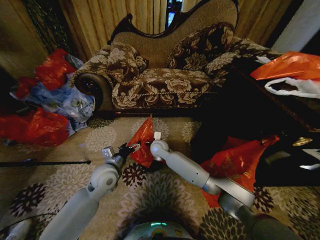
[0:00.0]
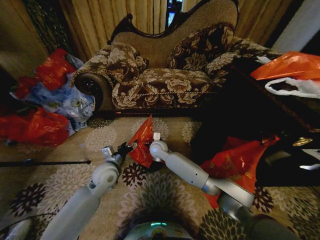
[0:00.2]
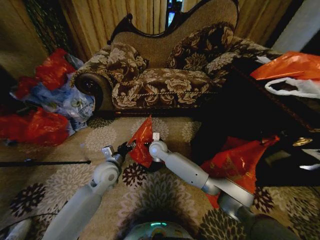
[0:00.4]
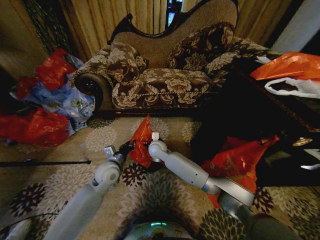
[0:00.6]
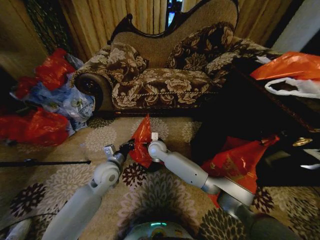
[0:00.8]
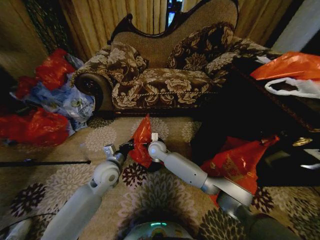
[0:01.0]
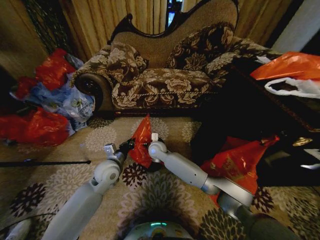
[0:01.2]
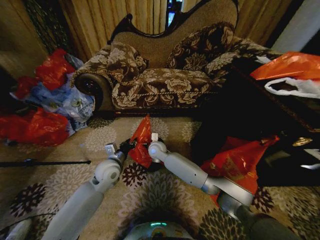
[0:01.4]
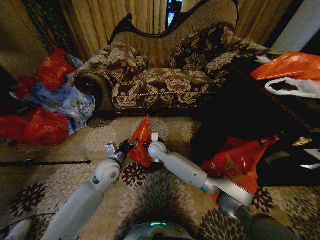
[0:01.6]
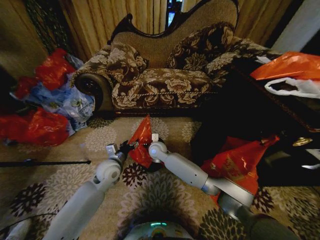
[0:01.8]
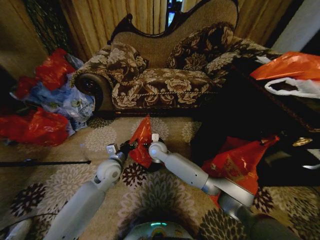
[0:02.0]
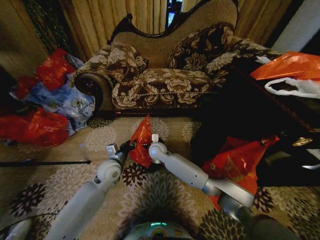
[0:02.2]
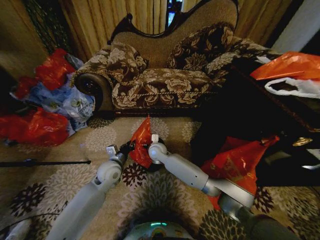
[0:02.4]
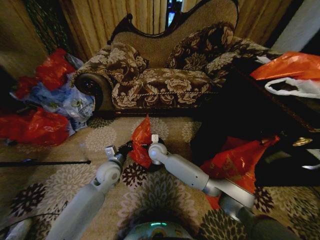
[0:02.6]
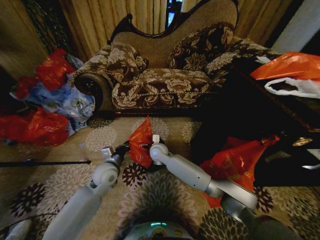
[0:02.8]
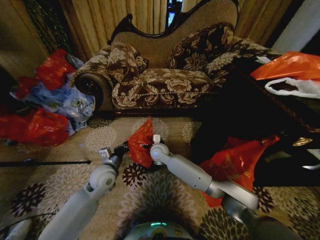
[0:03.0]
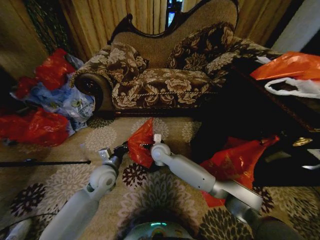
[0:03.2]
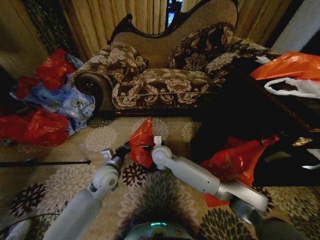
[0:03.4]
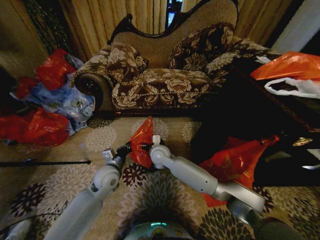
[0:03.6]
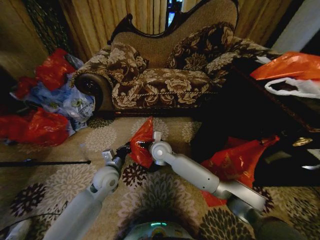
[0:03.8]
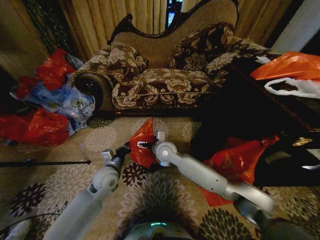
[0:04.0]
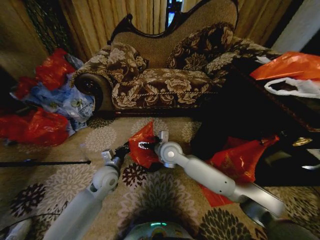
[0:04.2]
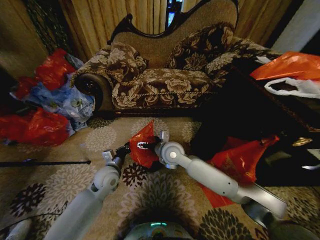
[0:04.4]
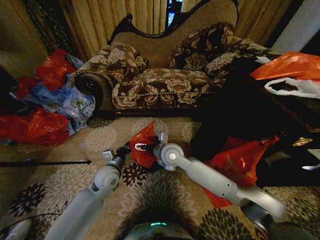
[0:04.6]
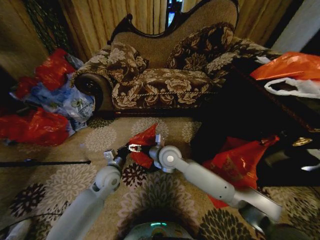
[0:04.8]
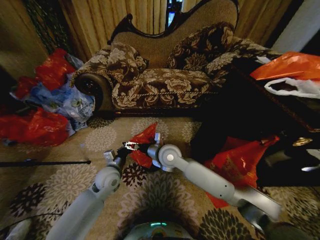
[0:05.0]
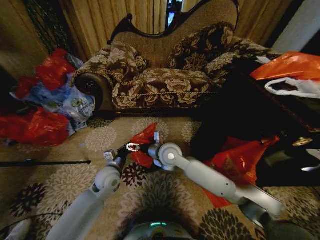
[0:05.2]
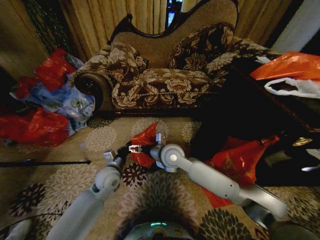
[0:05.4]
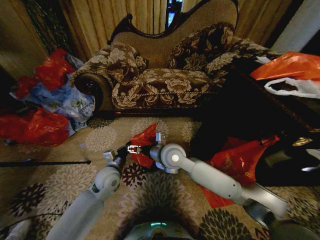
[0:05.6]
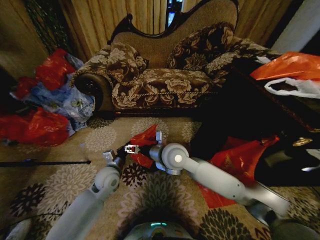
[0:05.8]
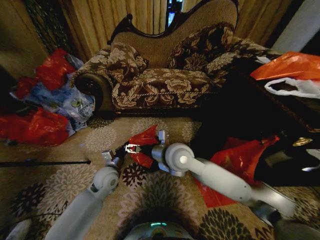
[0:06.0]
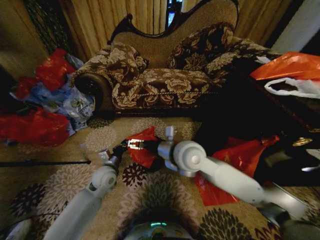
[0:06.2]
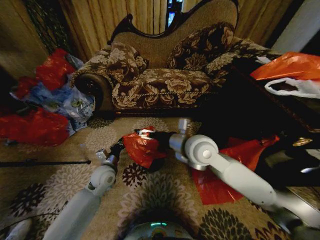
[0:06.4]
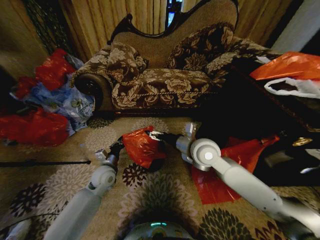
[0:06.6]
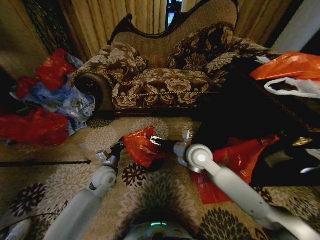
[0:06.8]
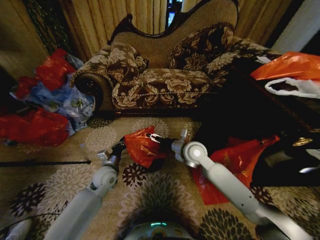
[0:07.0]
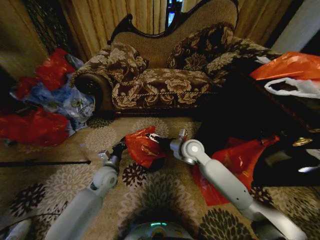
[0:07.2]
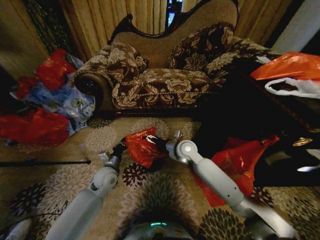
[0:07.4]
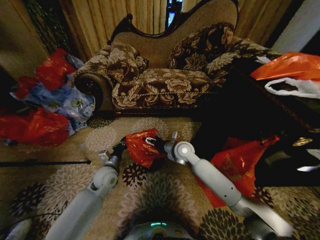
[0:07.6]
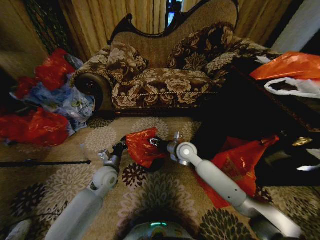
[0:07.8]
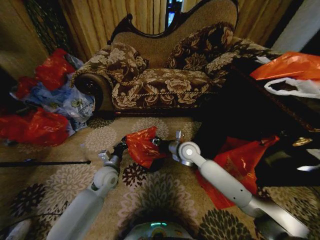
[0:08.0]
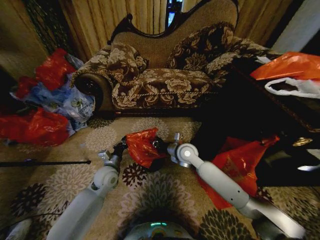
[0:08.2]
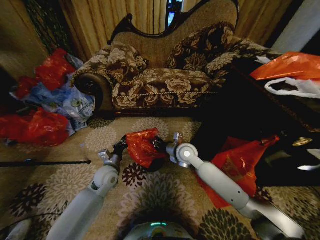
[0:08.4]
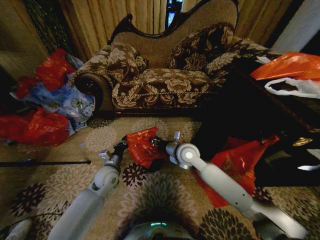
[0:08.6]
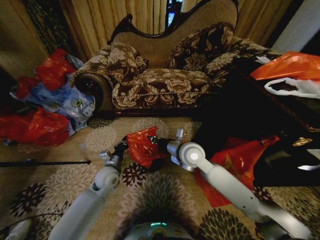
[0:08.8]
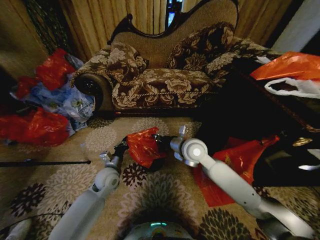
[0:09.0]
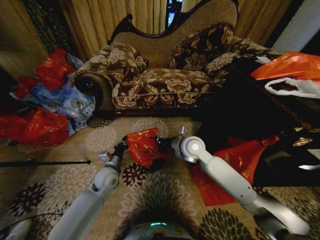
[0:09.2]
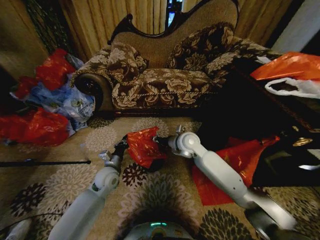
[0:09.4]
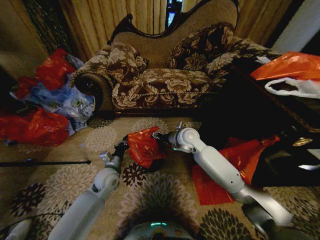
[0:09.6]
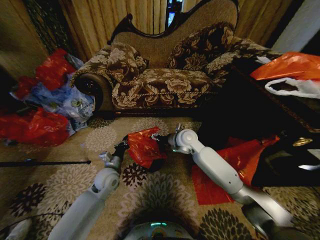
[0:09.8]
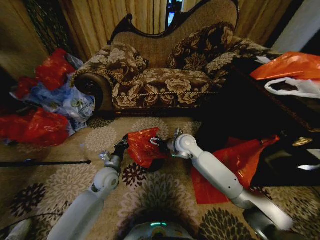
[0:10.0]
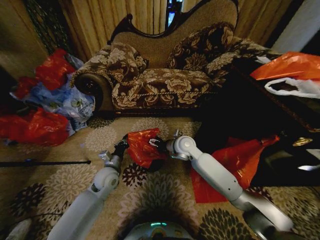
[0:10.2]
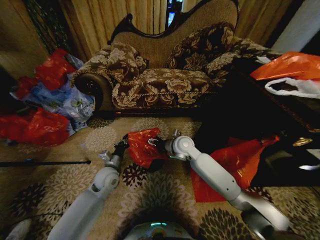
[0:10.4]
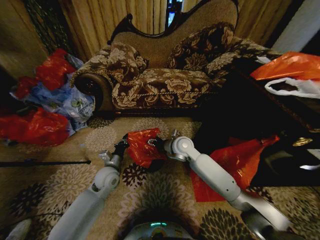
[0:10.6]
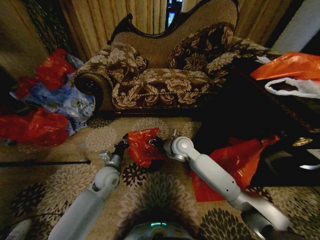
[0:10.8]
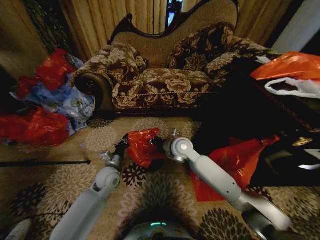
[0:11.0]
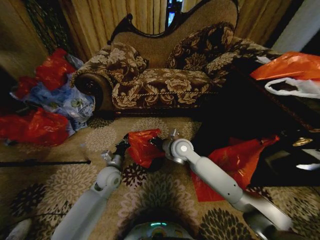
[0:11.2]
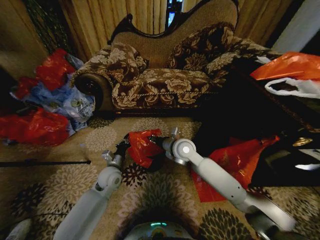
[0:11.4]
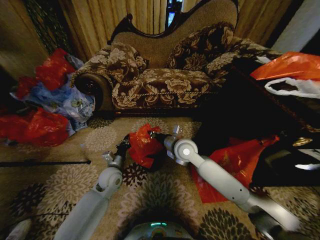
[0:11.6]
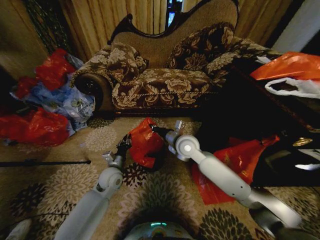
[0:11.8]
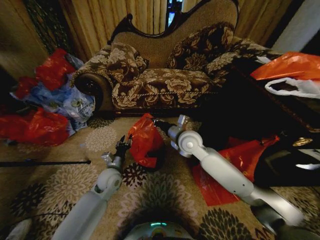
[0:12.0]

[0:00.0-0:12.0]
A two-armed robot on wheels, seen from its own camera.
Task of the whole recording: Place a garbage bag over the trash bin.
0:00.0 to 0:01.6: The left gripper closes.
0:01.6 to 0:03.0: The left gripper closes its fingers.
0:03.0 to 0:04.4: The right gripper moves upward, backward and to the right, approximately 10 cm.
0:04.4 to 0:06.0: The right gripper travels backward and upward by about 5 cm.
0:06.0 to 0:07.6: The right gripper shifts some 15 cm forward, downward and to the right.
0:07.6 to 0:09.0: The right gripper shifts about 5 cm upward, and closes its fingers.
0:09.0 to 0:10.4: The right gripper moves approximately 5 cm, and opens up.
0:10.4 to 0:12.0: The right gripper moves upward, roughly 5 cm, and closes its fingers. The left gripper opens.

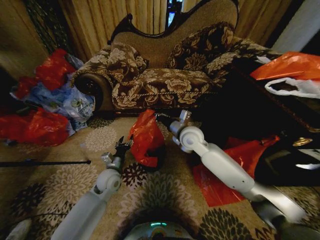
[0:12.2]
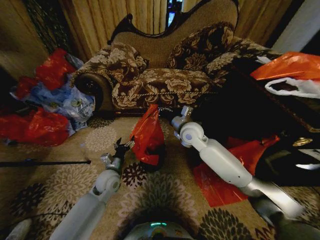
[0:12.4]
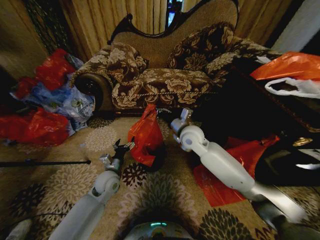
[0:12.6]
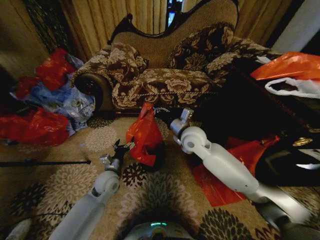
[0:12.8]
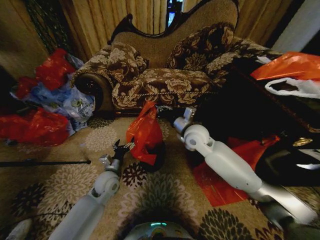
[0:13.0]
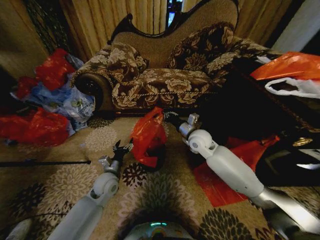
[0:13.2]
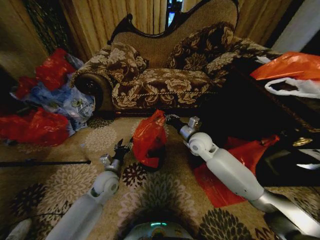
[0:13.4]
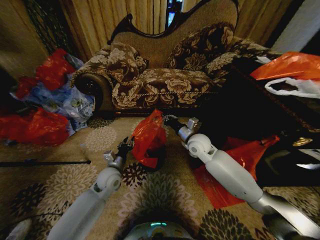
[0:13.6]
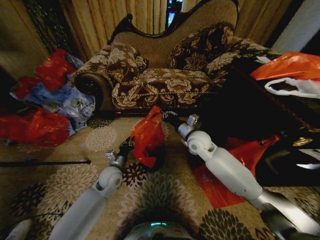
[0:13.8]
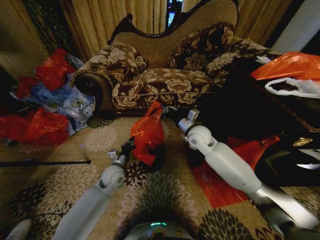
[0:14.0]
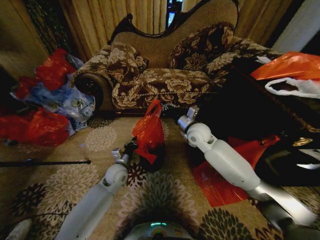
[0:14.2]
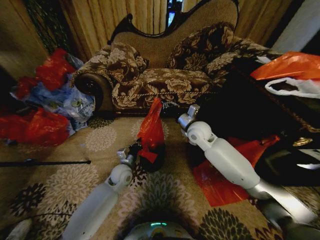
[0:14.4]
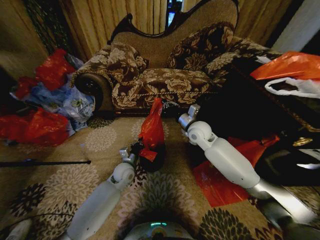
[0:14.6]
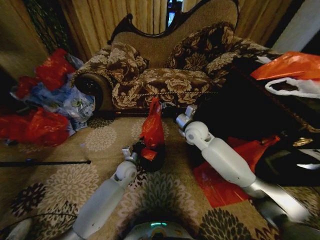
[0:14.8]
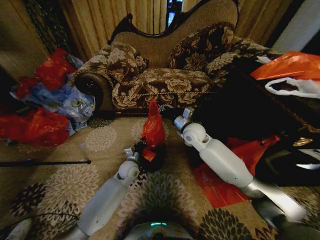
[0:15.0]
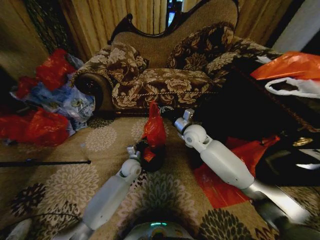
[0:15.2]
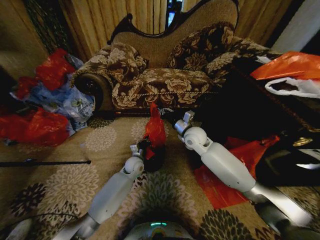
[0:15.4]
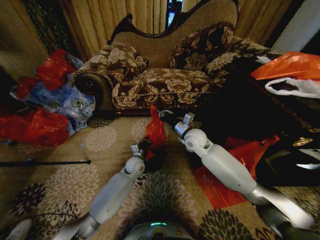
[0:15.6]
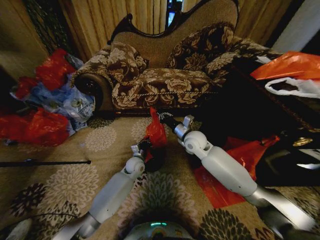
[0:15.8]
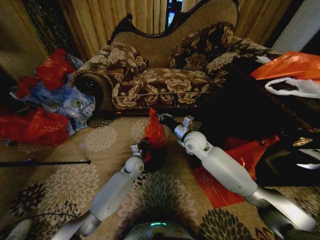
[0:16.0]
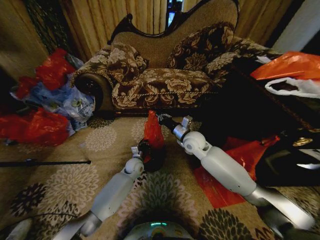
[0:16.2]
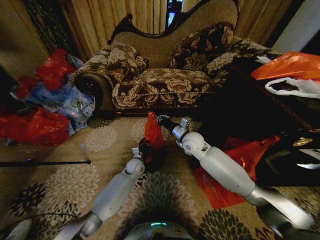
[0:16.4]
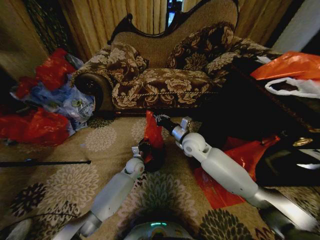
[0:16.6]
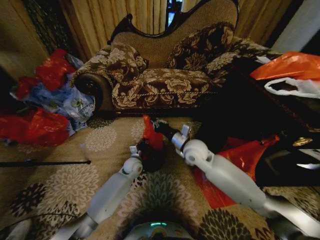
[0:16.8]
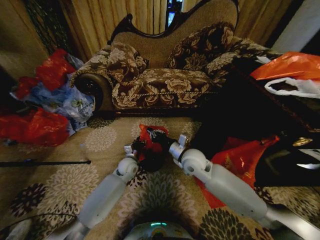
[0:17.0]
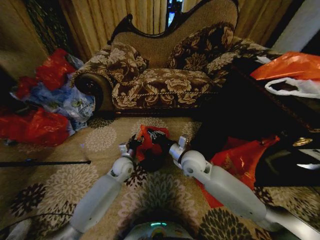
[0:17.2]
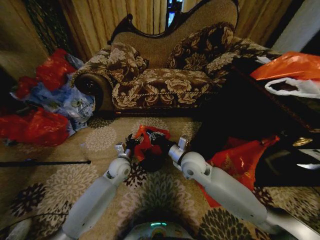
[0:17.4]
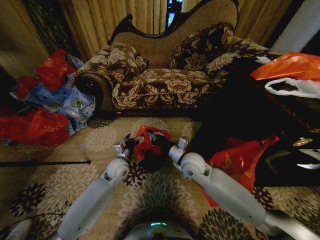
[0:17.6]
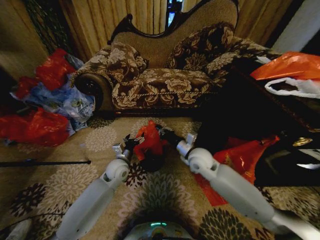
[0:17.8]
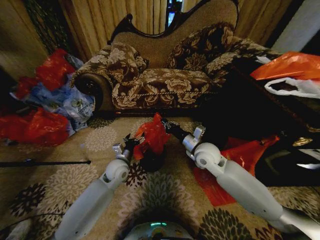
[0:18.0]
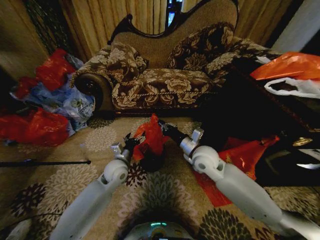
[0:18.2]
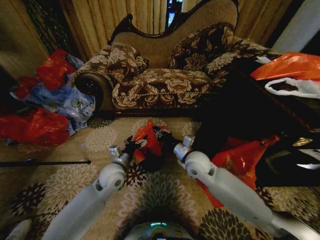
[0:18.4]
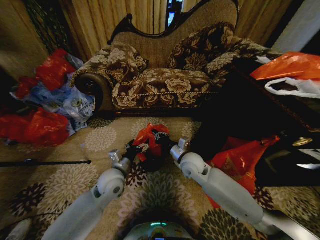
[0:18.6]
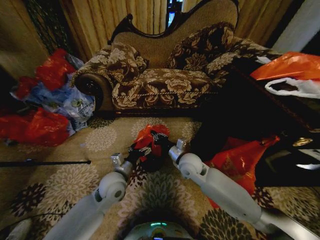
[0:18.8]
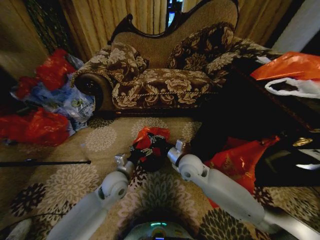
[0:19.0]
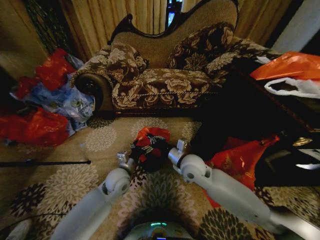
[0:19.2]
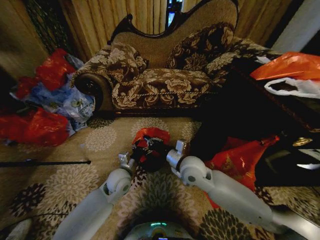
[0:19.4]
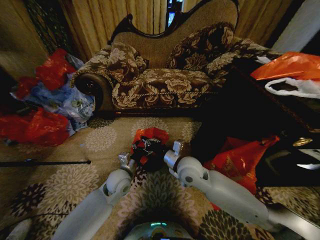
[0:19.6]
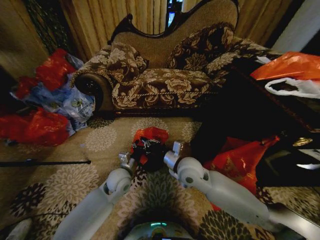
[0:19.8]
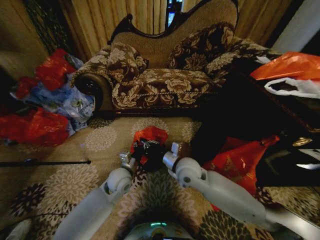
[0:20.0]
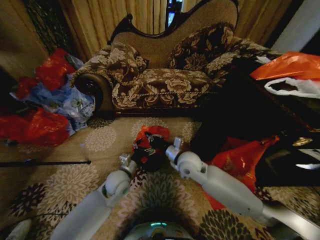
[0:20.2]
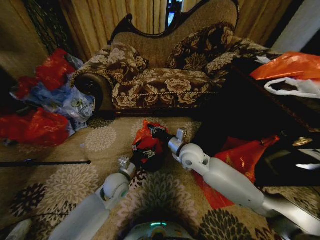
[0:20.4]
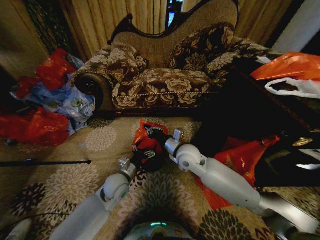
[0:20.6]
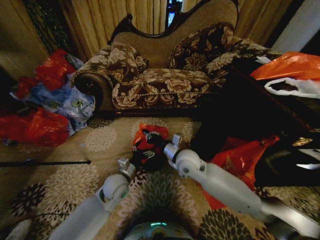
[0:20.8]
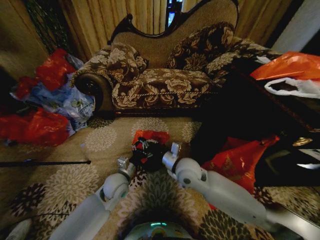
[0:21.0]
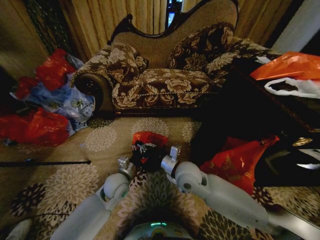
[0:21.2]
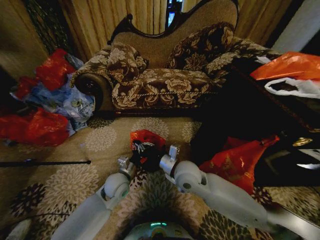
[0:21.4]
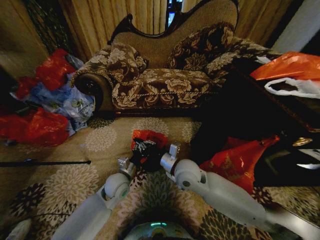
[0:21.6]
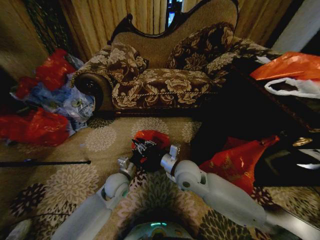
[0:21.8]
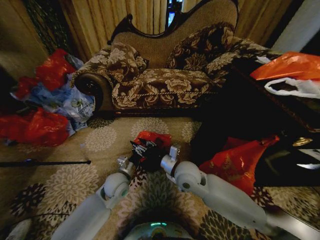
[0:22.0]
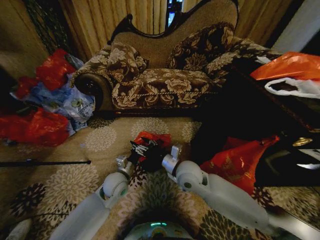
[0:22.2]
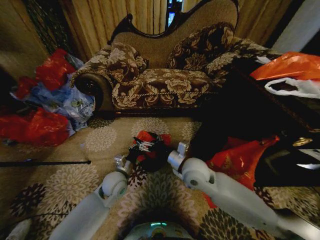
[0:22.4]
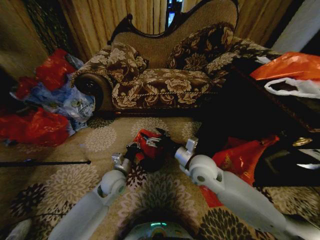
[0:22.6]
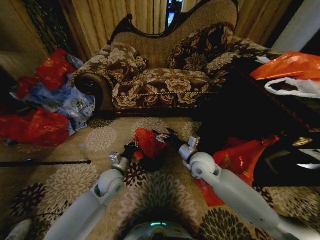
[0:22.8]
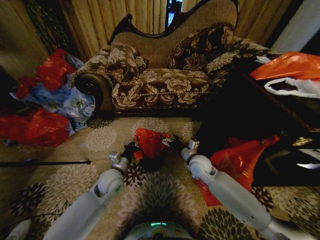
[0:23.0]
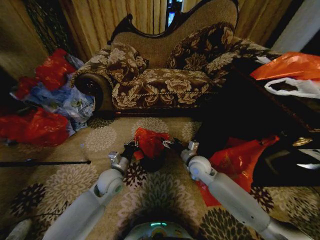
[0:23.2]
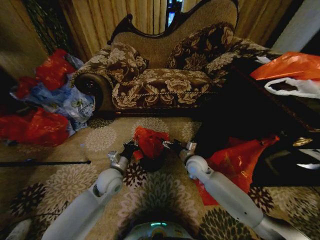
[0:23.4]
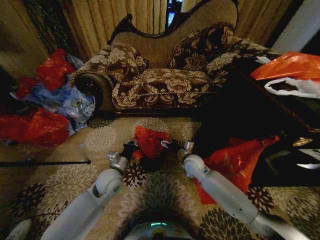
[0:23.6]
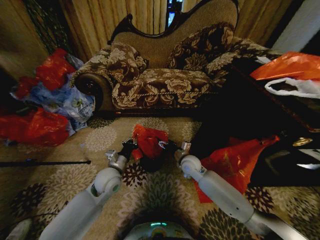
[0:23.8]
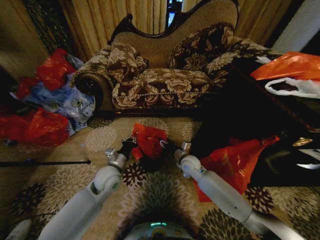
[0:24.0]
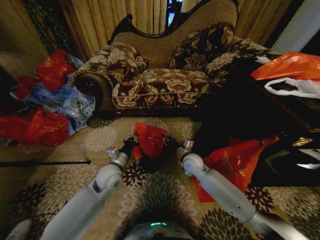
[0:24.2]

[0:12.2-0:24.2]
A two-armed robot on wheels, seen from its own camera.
Task of the whole recording: Place a garbage bag over the trash bin.
0:12.2 to 0:13.8: The left gripper closes its fingers. Meanwhile the right gripper shifts by approximately 5 cm.
0:13.8 to 0:15.2: The left gripper is displaced forward and to the right by some 10 cm.
0:15.2 to 0:16.6: The grippers stay close to where they were, moving slightly.
0:16.6 to 0:18.2: The right gripper shifts approximately 5 cm backward; the left gripper travels upward, backward and to the left by some 15 cm, and opens.
0:18.2 to 0:19.8: The right gripper heads to the left, covering about 5 cm.
0:19.8 to 0:21.2: The right gripper moves about 5 cm forward and comes back.
0:21.2 to 0:22.6: The right gripper goes some 5 cm to the right, and opens up, while the left gripper closes.
0:22.6 to 0:24.2: The right gripper heads downward and forward, covering some 15 cm, and closes.
